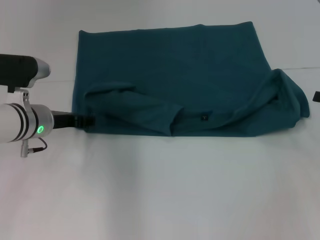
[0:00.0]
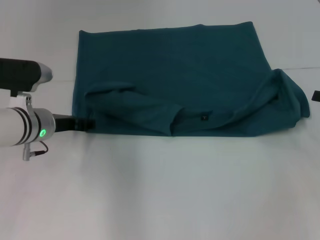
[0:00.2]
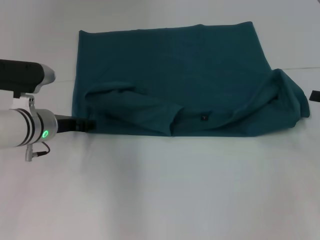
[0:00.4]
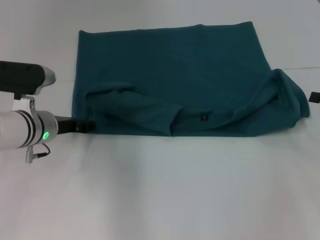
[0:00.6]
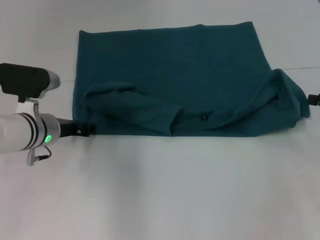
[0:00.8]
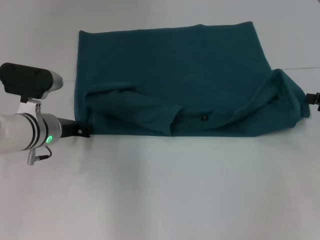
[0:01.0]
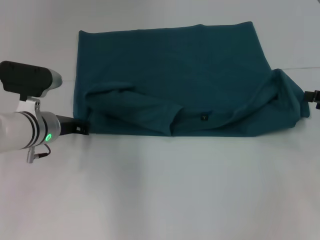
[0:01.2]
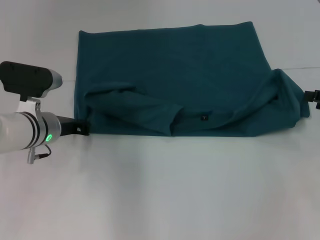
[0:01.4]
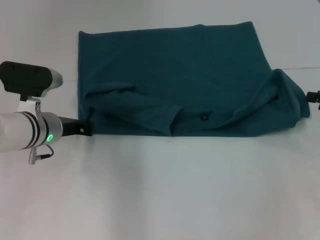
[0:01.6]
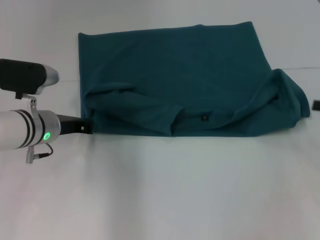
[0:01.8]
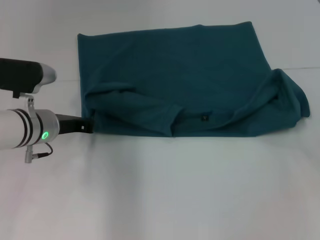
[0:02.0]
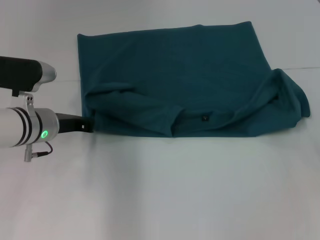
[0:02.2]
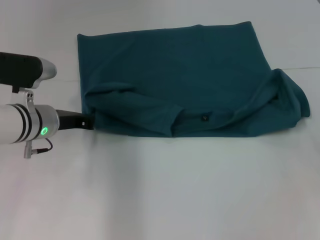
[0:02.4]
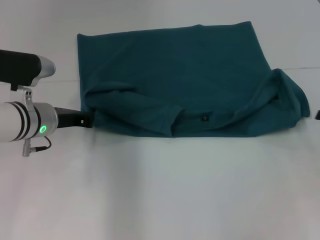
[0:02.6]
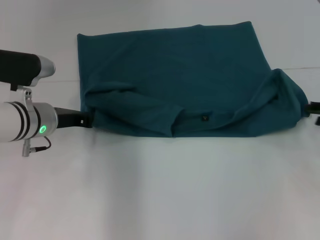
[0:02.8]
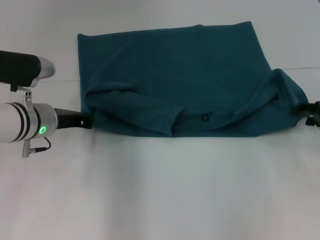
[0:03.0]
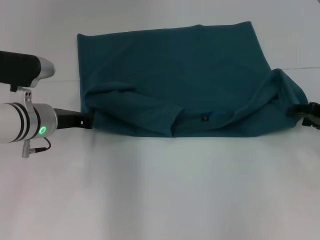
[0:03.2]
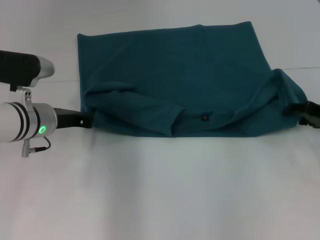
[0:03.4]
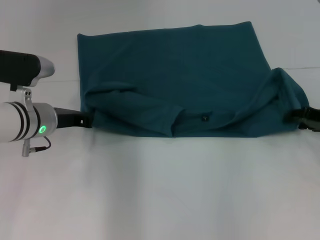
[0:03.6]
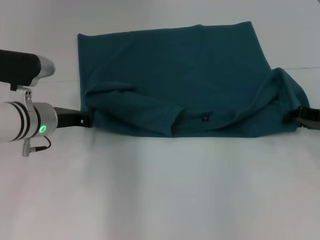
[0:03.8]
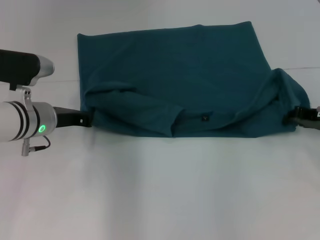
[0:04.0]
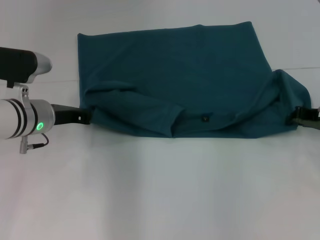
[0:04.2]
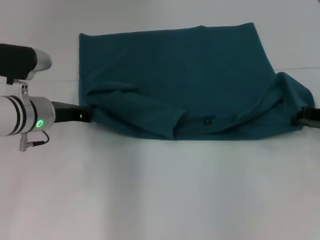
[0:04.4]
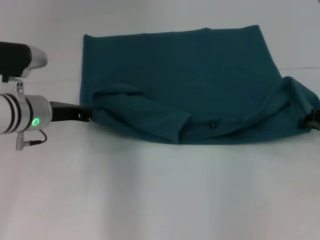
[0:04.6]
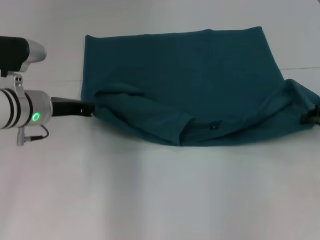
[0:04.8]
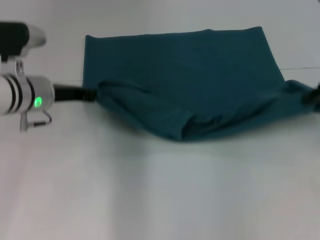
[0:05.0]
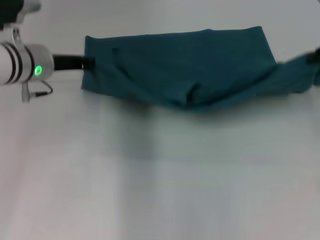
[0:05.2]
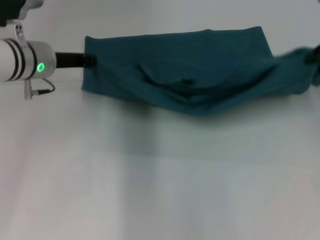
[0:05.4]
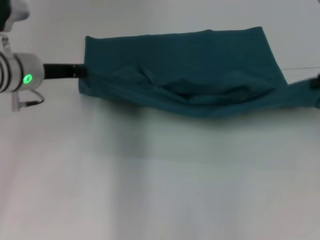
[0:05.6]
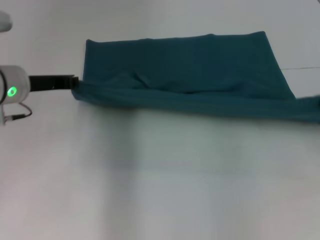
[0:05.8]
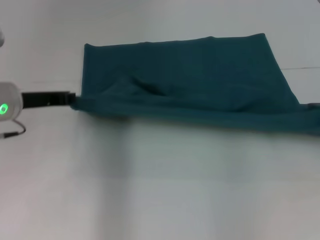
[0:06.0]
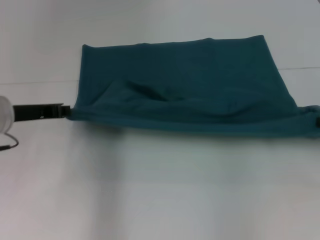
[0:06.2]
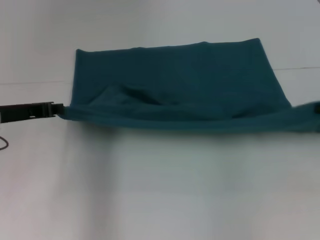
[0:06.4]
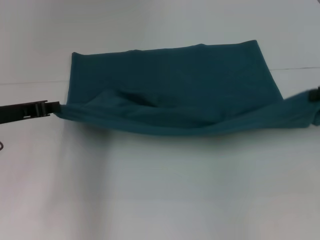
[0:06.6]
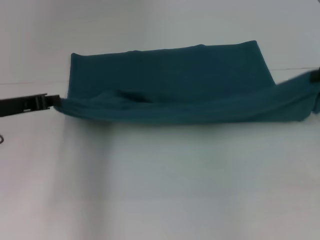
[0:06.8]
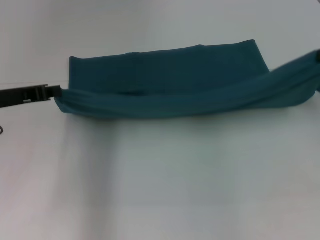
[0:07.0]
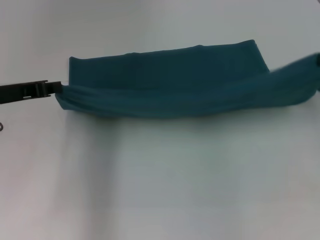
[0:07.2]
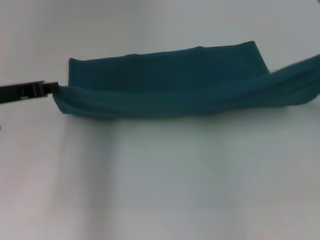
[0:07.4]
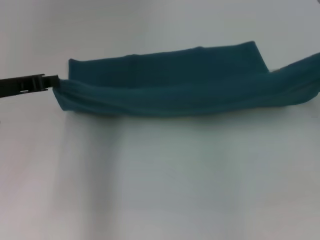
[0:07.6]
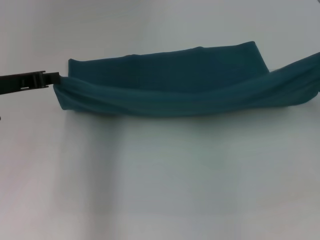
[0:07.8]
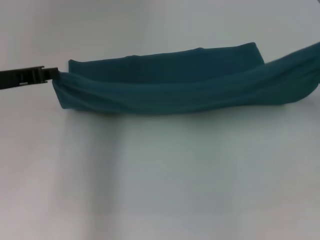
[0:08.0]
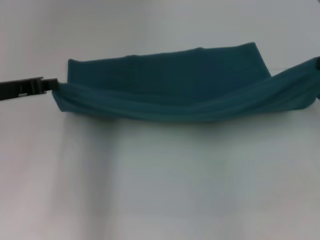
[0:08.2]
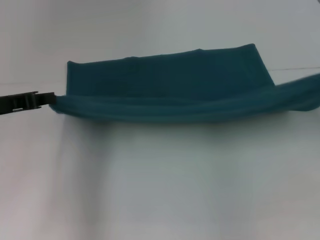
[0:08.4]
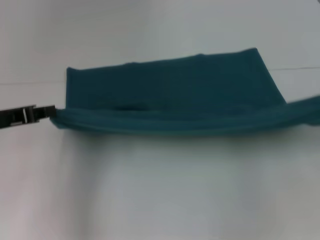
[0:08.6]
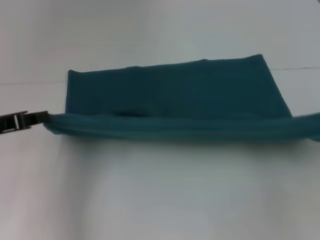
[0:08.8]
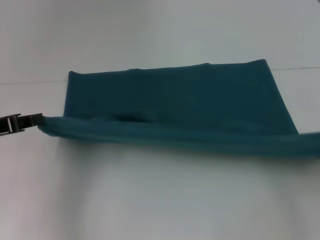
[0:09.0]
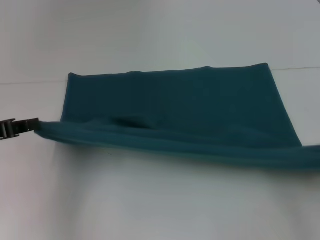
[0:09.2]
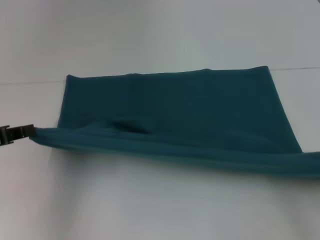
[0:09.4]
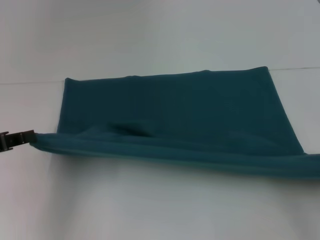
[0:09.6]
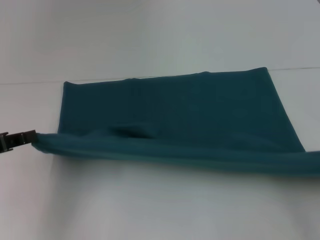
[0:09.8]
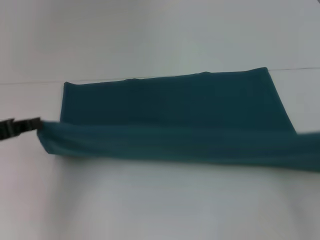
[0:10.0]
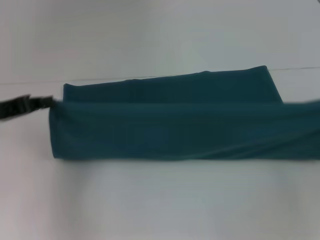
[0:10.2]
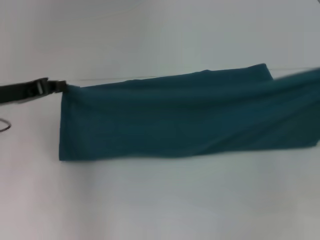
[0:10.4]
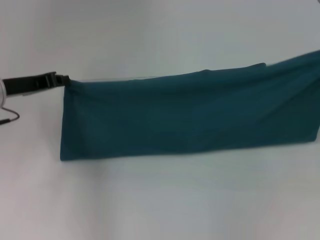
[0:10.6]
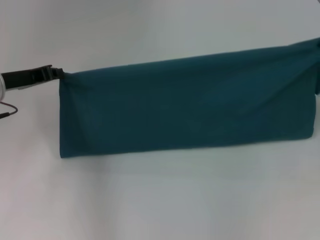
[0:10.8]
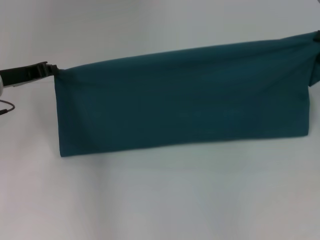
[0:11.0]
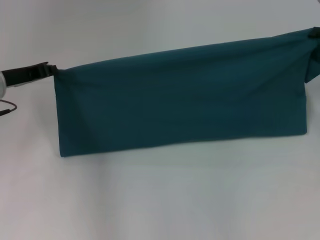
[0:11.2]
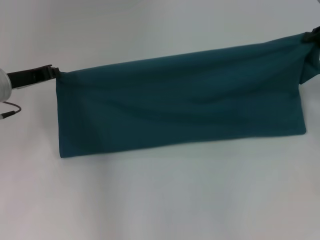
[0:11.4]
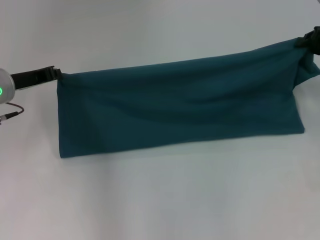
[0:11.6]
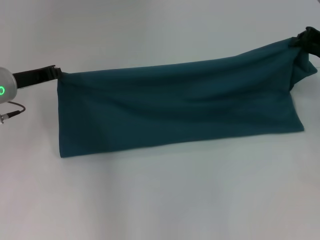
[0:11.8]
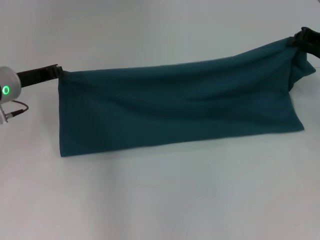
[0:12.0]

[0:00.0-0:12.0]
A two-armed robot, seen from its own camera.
Step, 0.0 to 9.8 s: Pull the clothes with your left hand.
Step, 0.0 to 9.8 s: Pull the clothes with your right hand.
0.0 to 1.6 s: The left gripper closes.
1.6 to 3.0 s: The right gripper changes place by some 5 cm.
3.0 to 4.4 s: The right gripper closes its fingers.
4.4 to 6.0 s: The left gripper changes place by approximately 5 cm.
6.0 to 7.6 s: The left gripper changes place by roughly 5 cm. Meanwhile the right gripper goes some 10 cm upward.
7.6 to 9.0 s: The left gripper shifts some 5 cm backward; the right gripper travels backward and downward by approximately 15 cm.
9.0 to 10.4 s: Both grippers move forward, about 10 cm.
10.4 to 12.0 s: The right gripper moves forward and to the left, about 15 cm; the left gripper shifts roughly 5 cm forward.

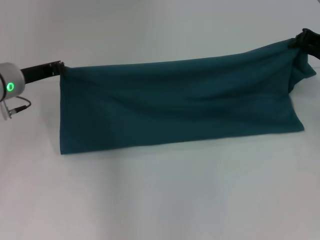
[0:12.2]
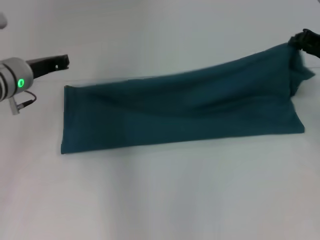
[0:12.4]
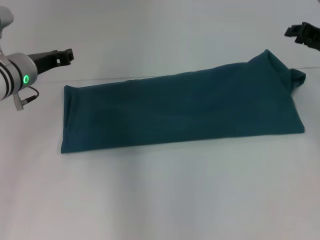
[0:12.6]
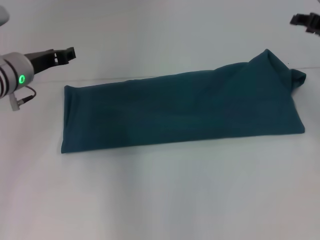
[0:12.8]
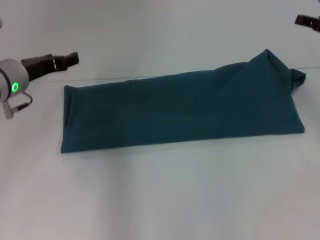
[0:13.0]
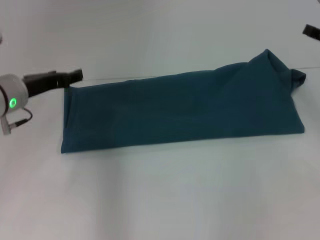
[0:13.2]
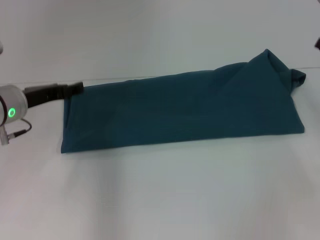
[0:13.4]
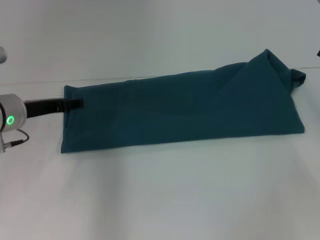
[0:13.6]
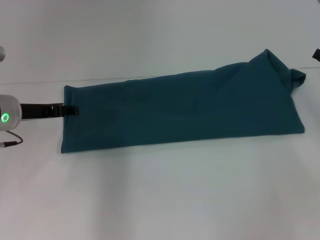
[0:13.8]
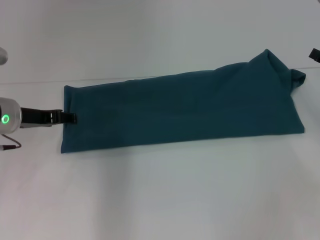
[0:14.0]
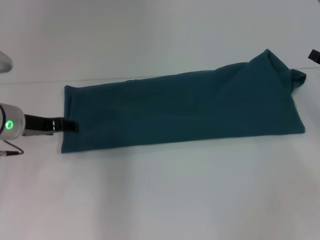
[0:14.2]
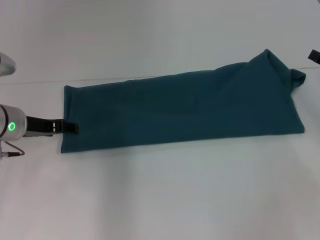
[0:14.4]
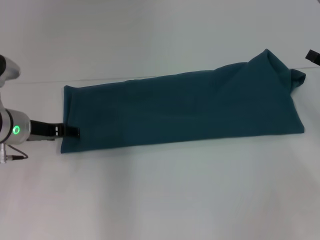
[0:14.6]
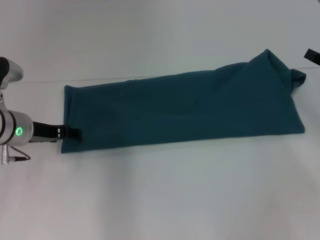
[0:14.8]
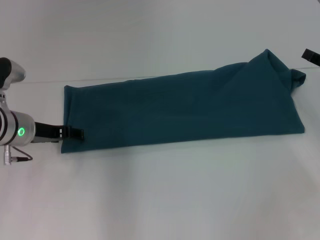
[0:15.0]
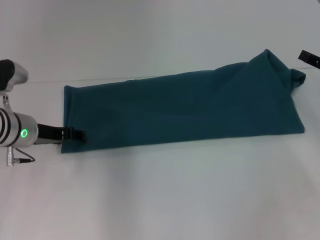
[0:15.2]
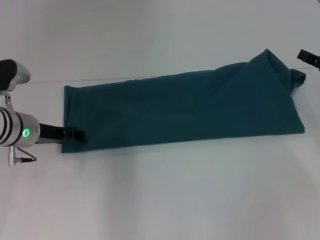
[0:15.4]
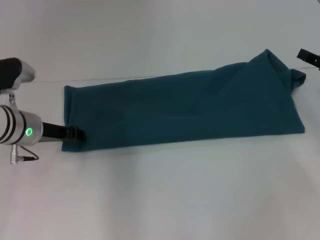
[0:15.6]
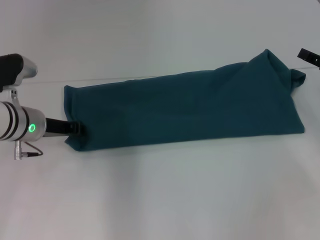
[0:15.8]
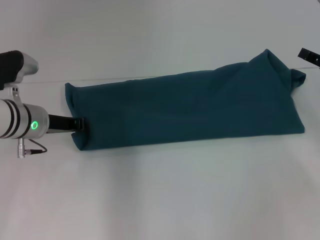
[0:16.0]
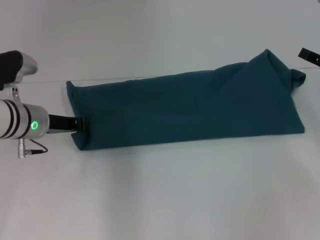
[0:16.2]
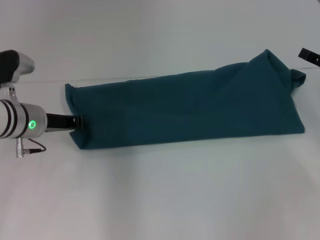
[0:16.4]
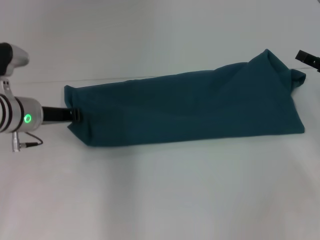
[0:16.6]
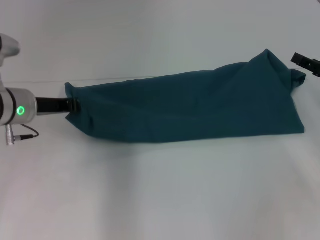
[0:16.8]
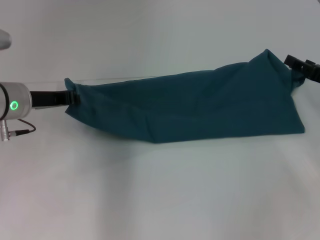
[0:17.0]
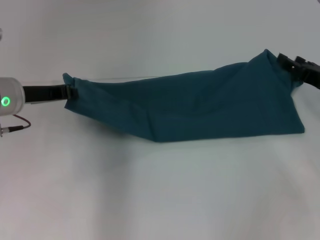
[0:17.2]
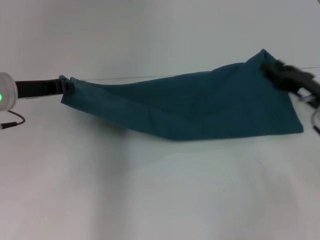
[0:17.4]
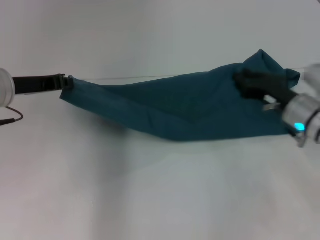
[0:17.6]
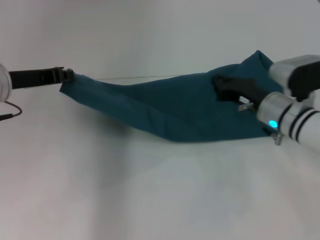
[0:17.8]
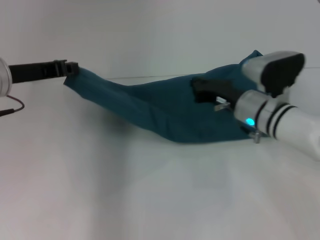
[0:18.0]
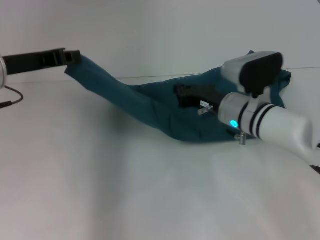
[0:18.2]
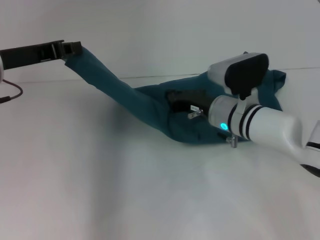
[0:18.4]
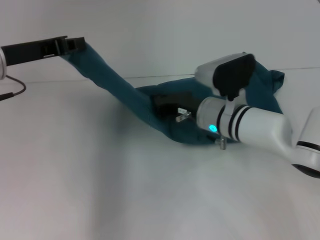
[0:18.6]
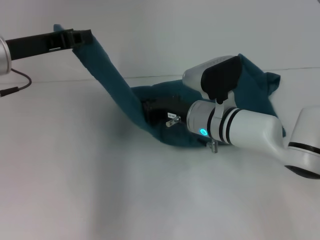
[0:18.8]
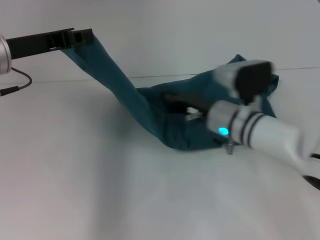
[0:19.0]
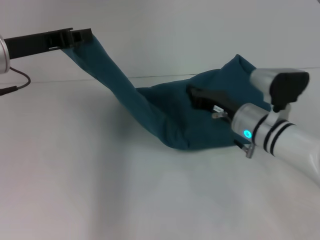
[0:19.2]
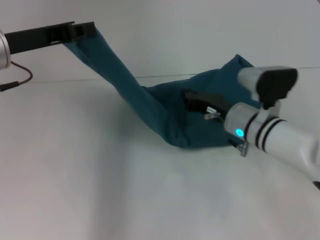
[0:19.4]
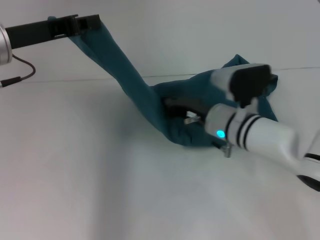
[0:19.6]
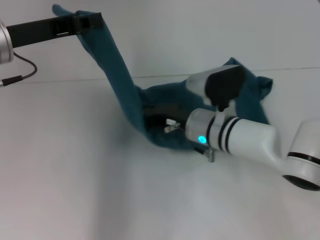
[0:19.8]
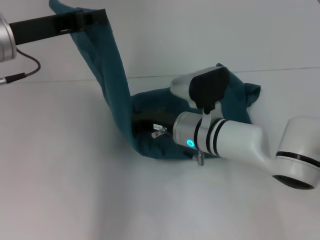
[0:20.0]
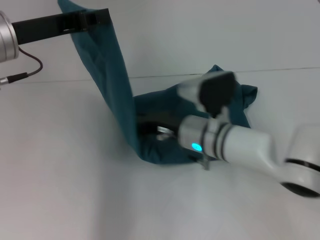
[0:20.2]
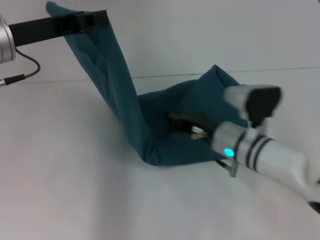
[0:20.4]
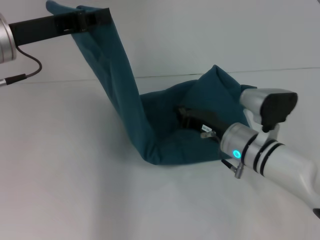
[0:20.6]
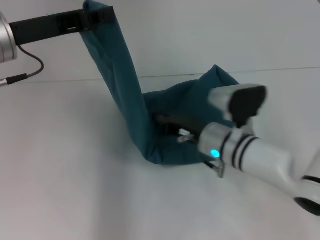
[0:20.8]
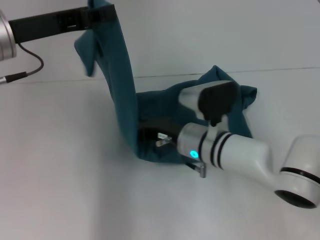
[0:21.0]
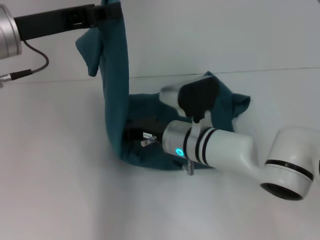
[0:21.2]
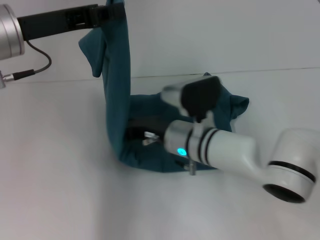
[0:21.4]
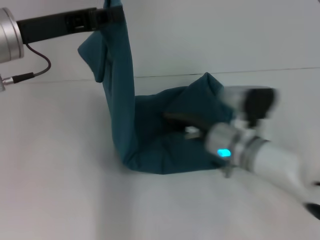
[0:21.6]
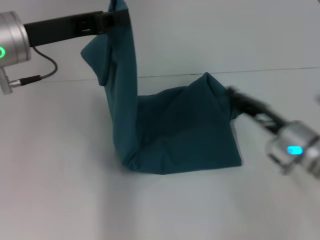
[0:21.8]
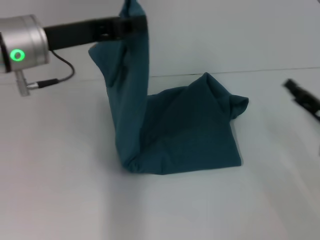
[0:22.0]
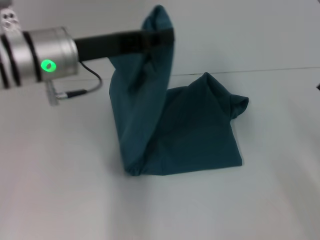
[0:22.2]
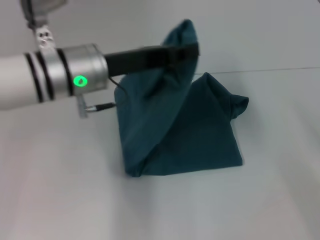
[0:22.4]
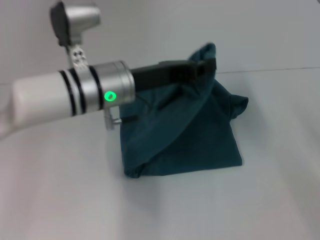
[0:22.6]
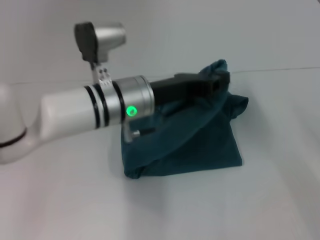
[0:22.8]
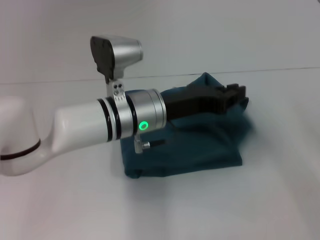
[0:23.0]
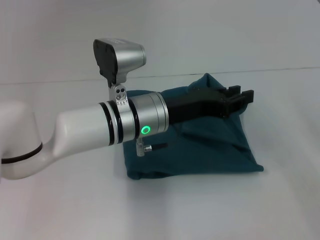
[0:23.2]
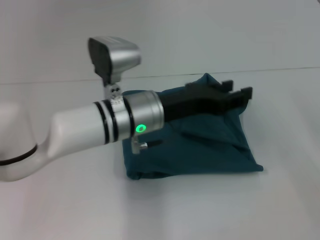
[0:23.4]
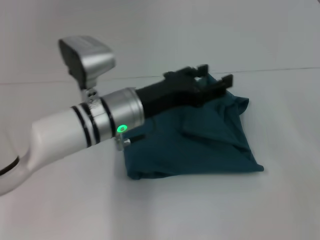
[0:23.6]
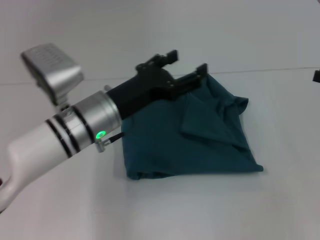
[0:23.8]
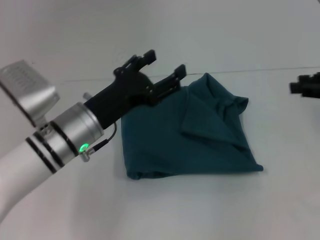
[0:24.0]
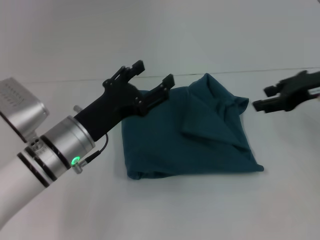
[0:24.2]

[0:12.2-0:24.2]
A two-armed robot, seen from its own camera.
Step, 13.4 to 21.4 s: Press the middle of the clothes with your right hand.
Step, 21.6 to 23.8 s: Fold the clothes to the left.
12.2 to 13.8 s: The right gripper travels backward by some 10 cm, and opens, while the left gripper opens.
13.8 to 15.2 s: The grippers stay close to where they were, moving slightly.
15.2 to 16.6 s: The left gripper closes up.
16.6 to 18.2 s: The left gripper is displaced upward by approximately 10 cm. Meanwhile the right gripper travels to the left by roughly 20 cm, and closes.
18.2 to 19.8 s: The right gripper moves left and right over approximately 10 cm, changing direction 2 times.
21.2 to 22.6 s: The left gripper is displaced to the right and downward by roughly 15 cm. The right gripper is displaced to the right by approximately 30 cm.
22.6 to 24.2 s: The right gripper shifts some 20 cm upward, forward and to the left, and opens up; the left gripper travels downward, to the left and backward by roughly 10 cm, and opens its fingers.
